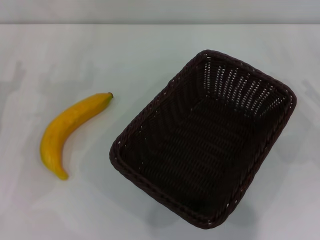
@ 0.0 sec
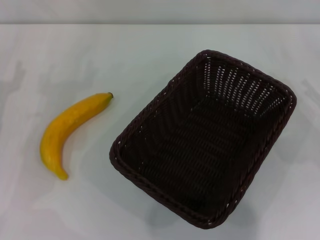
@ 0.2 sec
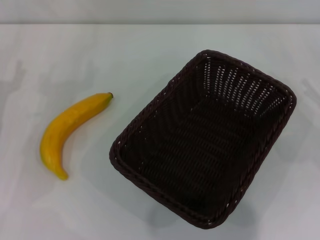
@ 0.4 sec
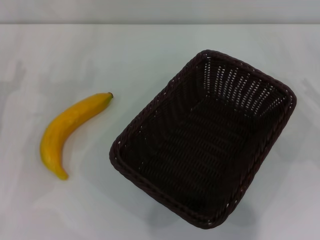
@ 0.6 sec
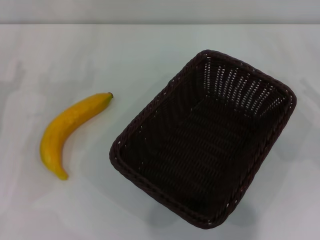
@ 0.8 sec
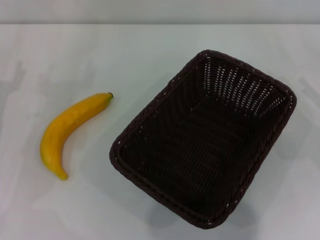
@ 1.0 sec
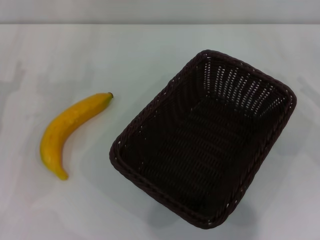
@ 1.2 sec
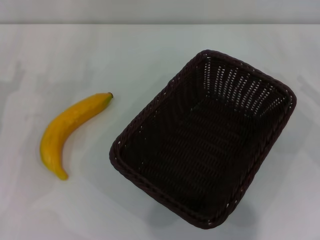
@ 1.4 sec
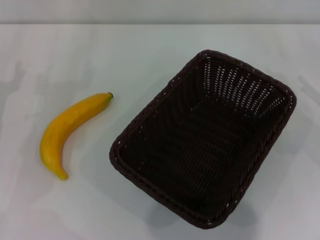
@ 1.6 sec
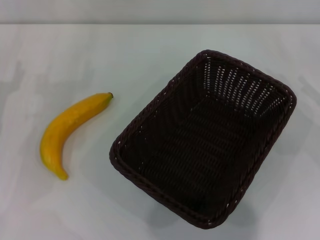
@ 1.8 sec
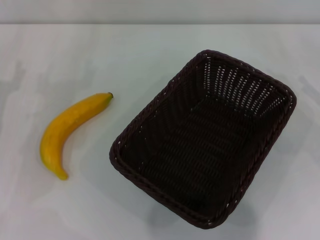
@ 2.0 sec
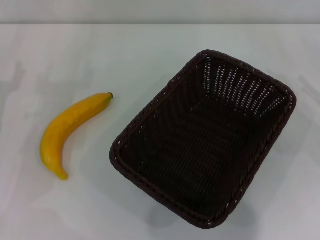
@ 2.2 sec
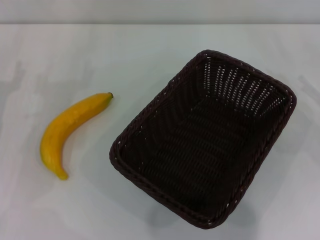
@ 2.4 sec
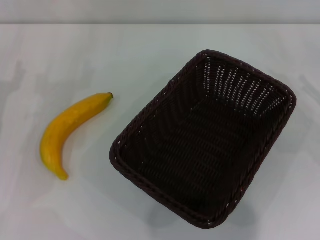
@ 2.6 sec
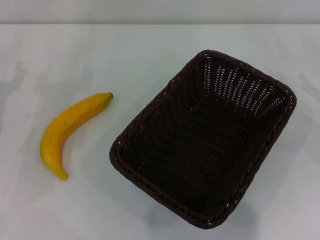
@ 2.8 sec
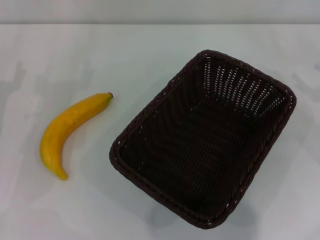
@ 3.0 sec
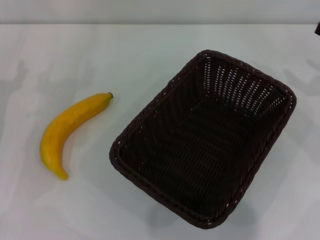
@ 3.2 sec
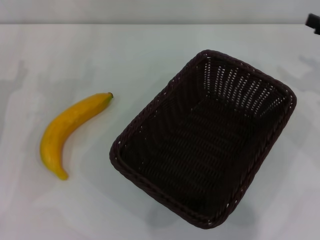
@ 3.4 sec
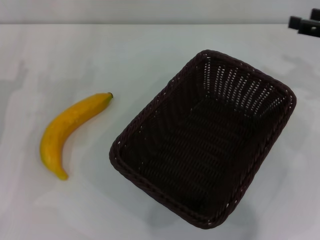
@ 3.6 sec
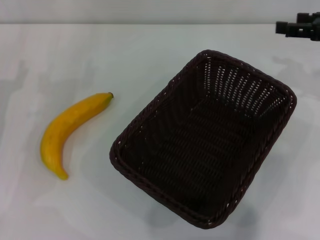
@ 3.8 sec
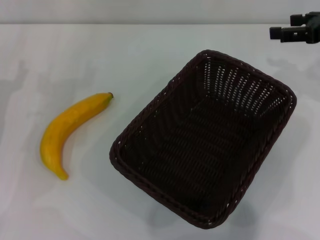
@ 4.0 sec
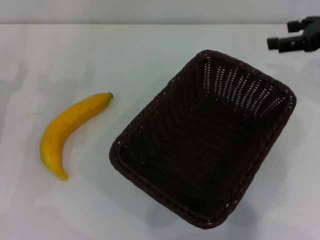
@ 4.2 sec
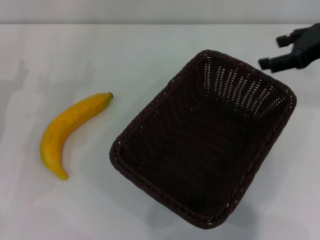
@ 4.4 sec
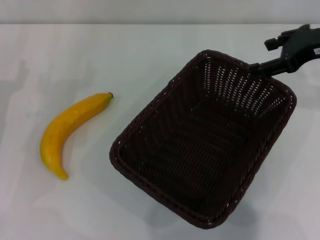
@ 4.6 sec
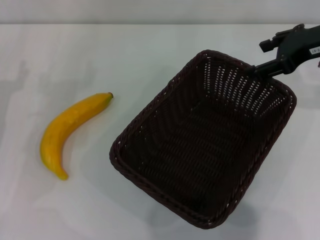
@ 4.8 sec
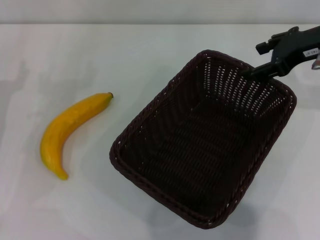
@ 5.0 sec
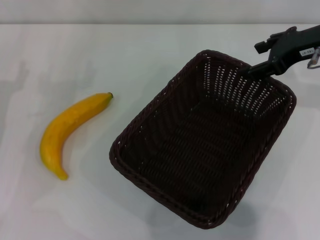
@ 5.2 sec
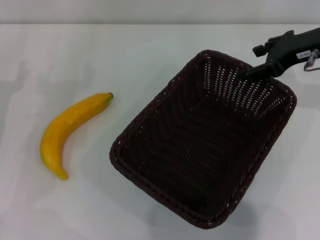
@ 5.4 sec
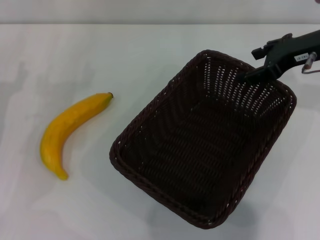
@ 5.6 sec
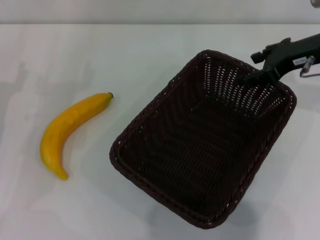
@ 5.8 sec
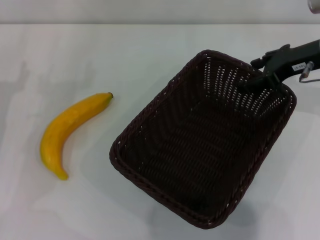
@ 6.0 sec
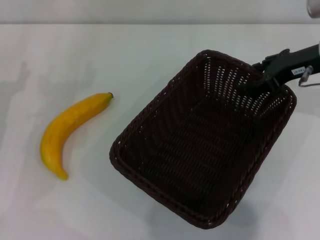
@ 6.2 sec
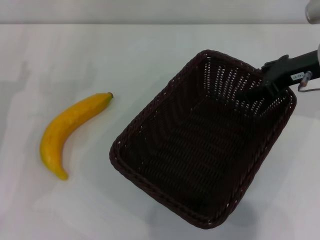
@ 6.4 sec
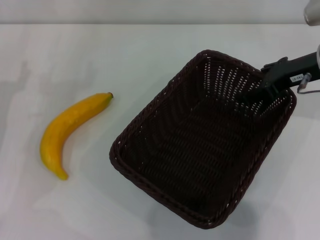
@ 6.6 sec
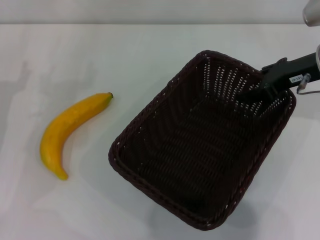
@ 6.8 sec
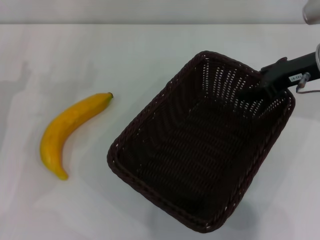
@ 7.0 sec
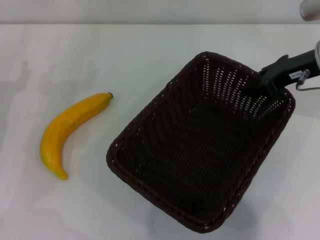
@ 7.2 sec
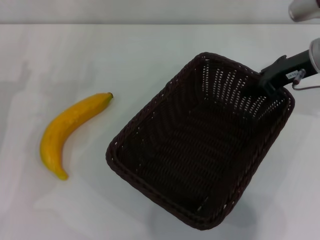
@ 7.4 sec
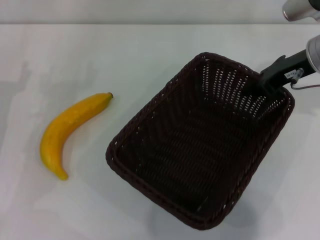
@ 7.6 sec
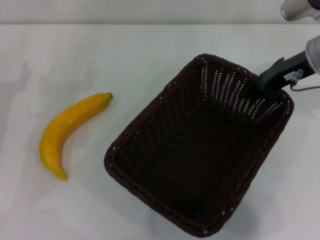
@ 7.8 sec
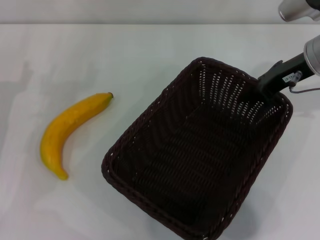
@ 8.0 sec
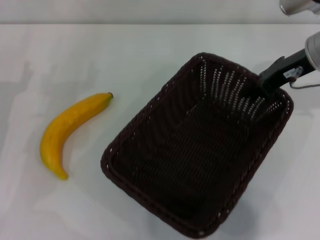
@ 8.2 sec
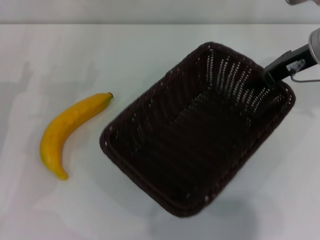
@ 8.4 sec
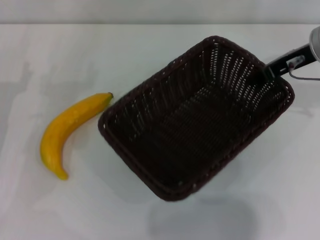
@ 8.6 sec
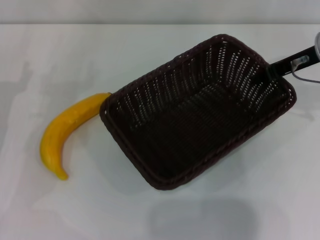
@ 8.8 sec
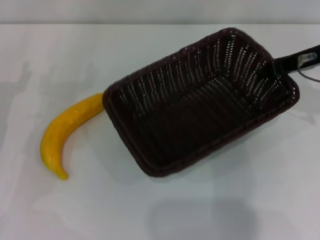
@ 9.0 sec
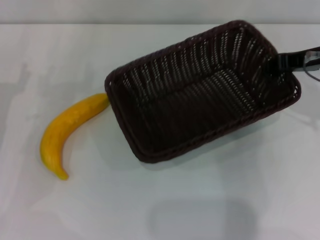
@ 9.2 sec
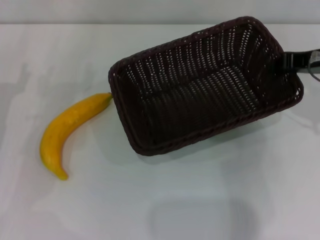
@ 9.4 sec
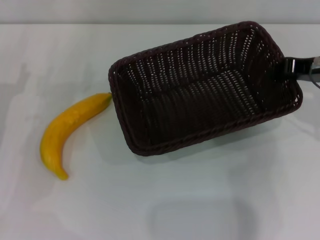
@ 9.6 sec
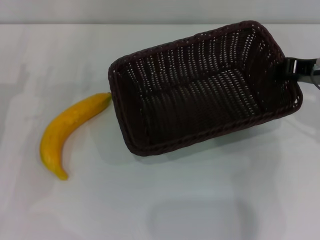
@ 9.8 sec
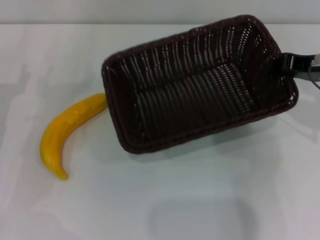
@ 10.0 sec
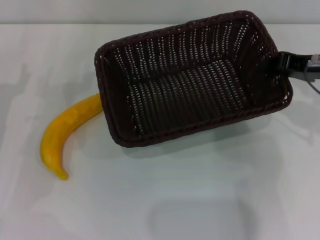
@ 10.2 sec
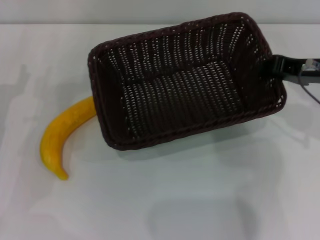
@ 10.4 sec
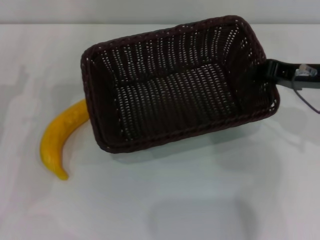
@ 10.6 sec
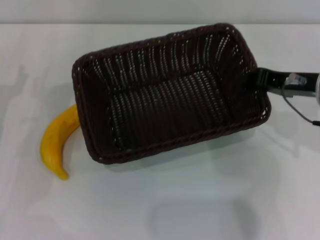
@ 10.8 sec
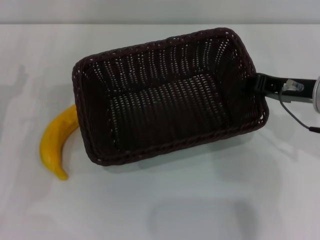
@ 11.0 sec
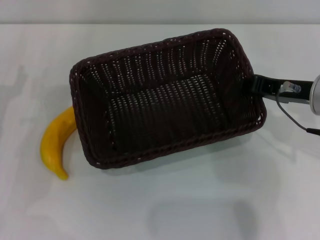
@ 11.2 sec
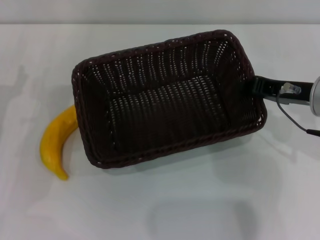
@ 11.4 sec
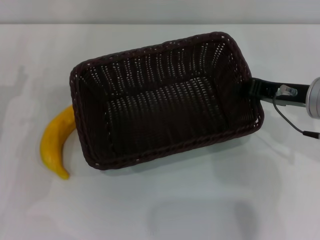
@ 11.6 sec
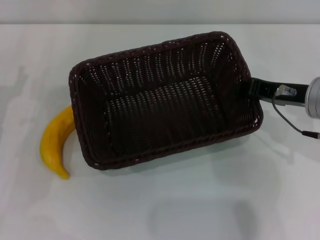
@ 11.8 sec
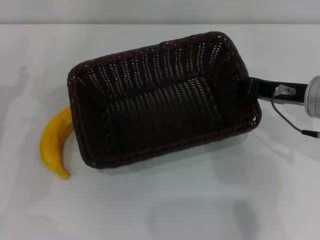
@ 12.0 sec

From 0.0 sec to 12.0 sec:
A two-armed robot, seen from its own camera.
Step, from 0.0 sec to 8.2 sec: Pick up the dark basket with the right gripper.
From 3.0 sec to 4.4 sec: The right gripper is displaced upward, to the left and forward by about 15 cm.
From 4.4 sec to 6.0 sec: There are only small adjustments of the grippers.
From 6.0 sec to 7.6 sec: The right gripper closes up.
From 9.0 sec to 10.4 sec: The right gripper travels backward by some 5 cm.
From 10.4 sec to 12.0 sec: The grippers stay close to where they were, moving slightly.

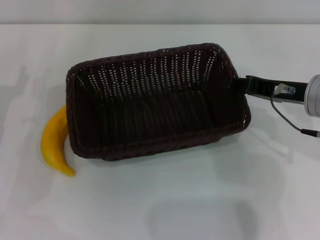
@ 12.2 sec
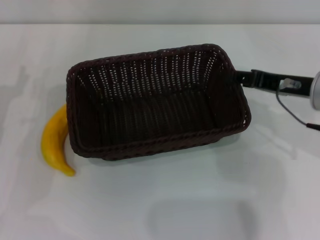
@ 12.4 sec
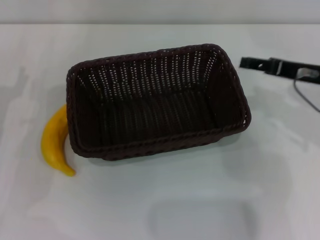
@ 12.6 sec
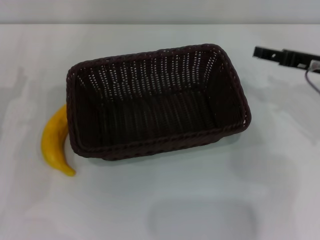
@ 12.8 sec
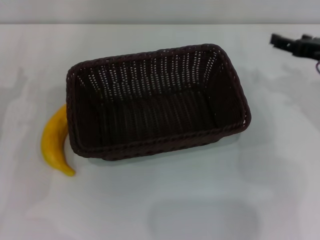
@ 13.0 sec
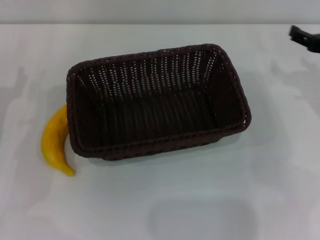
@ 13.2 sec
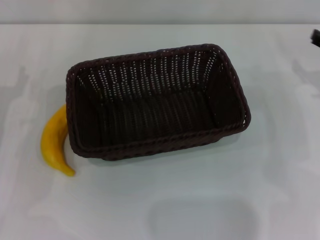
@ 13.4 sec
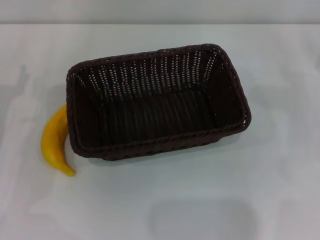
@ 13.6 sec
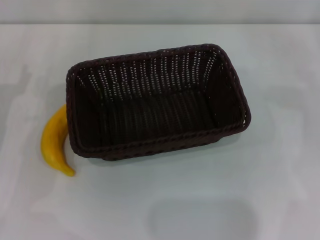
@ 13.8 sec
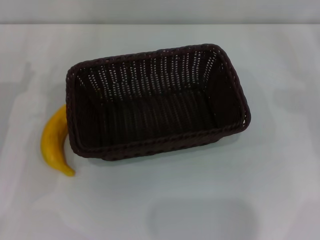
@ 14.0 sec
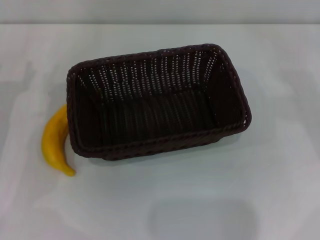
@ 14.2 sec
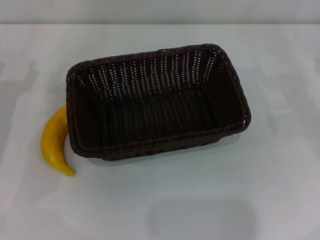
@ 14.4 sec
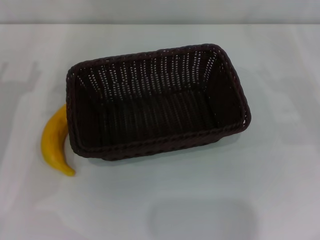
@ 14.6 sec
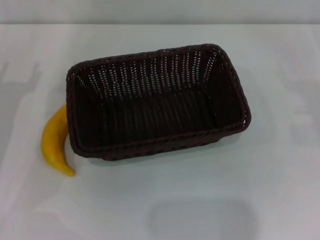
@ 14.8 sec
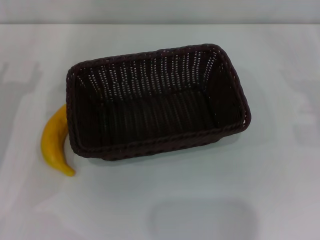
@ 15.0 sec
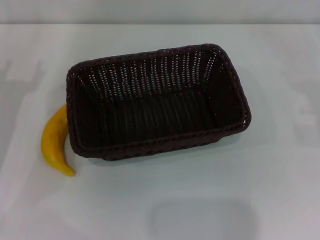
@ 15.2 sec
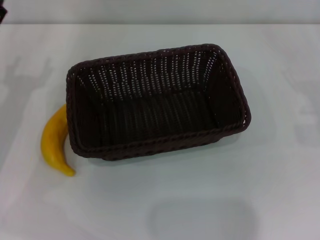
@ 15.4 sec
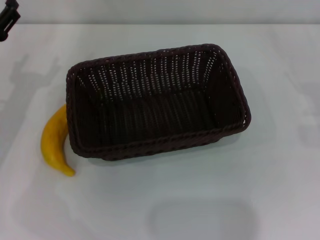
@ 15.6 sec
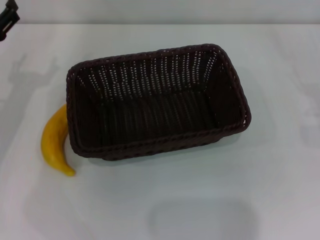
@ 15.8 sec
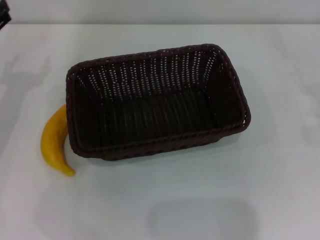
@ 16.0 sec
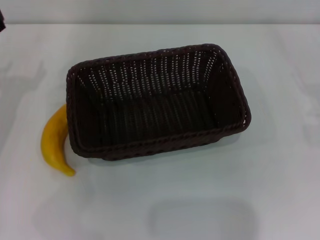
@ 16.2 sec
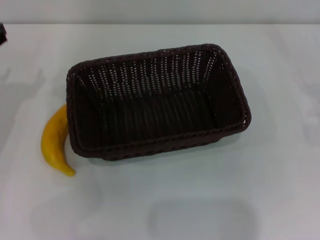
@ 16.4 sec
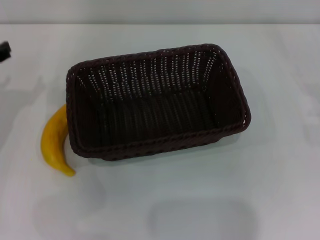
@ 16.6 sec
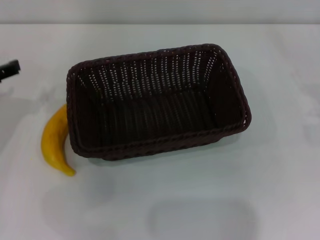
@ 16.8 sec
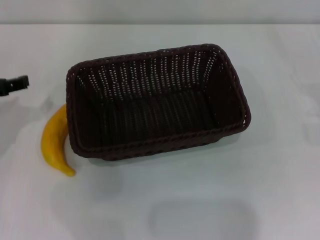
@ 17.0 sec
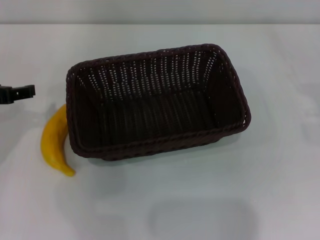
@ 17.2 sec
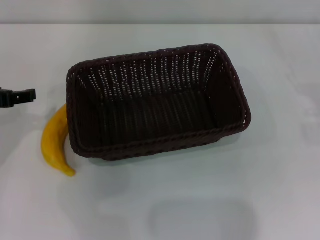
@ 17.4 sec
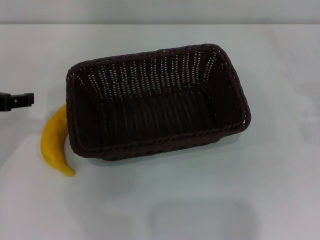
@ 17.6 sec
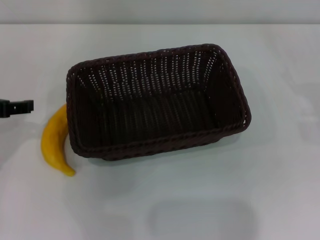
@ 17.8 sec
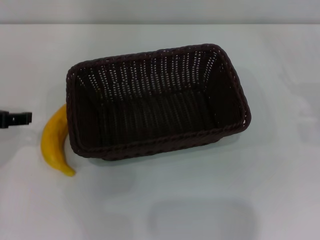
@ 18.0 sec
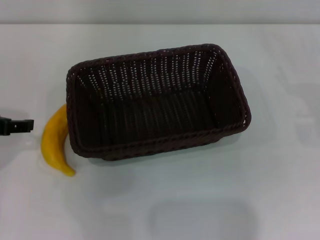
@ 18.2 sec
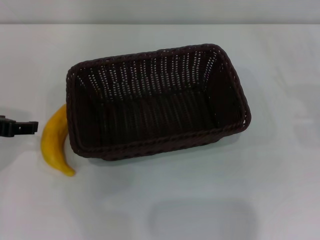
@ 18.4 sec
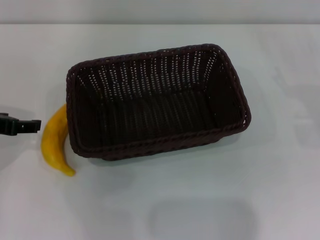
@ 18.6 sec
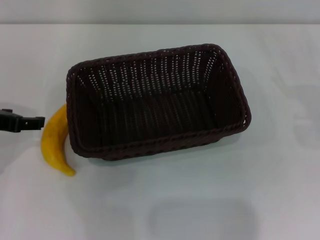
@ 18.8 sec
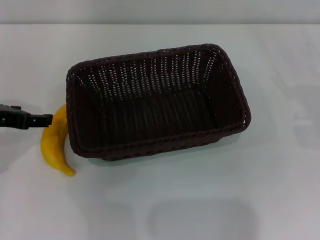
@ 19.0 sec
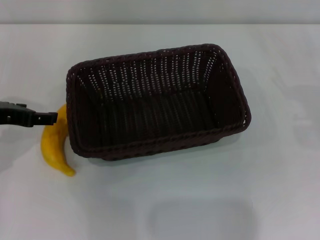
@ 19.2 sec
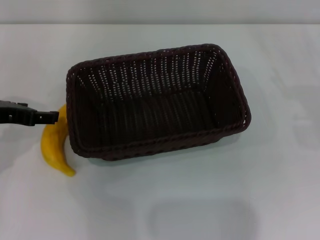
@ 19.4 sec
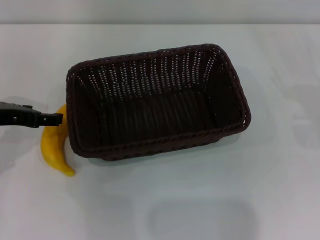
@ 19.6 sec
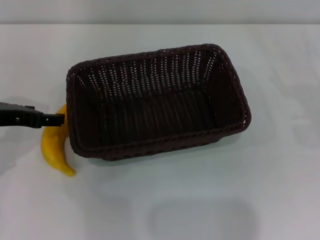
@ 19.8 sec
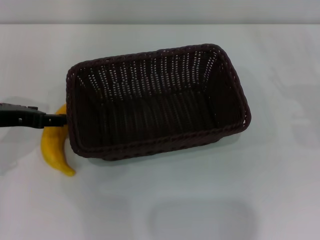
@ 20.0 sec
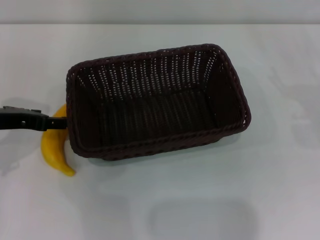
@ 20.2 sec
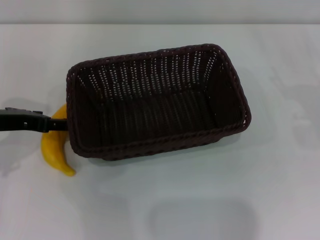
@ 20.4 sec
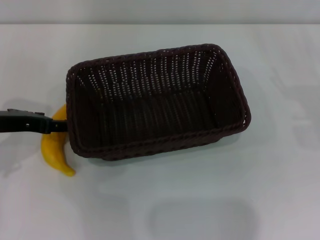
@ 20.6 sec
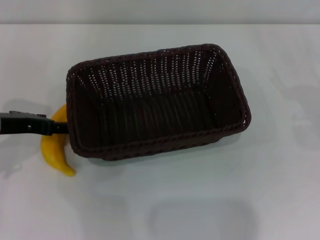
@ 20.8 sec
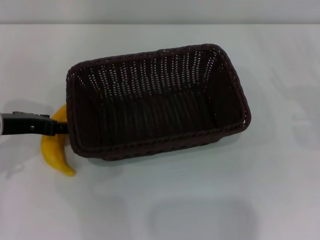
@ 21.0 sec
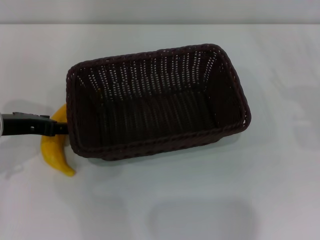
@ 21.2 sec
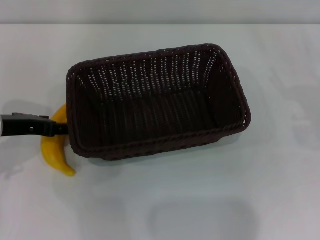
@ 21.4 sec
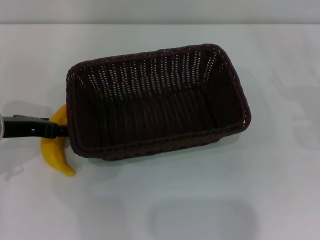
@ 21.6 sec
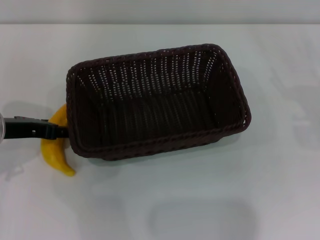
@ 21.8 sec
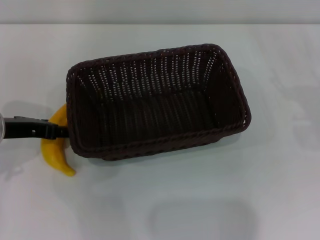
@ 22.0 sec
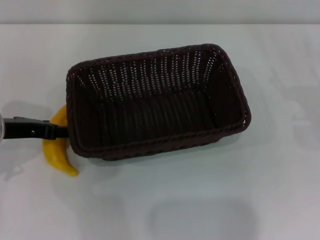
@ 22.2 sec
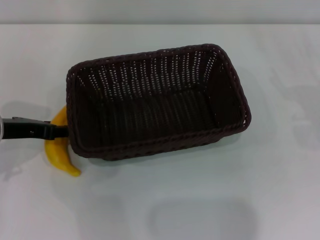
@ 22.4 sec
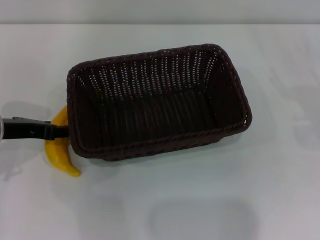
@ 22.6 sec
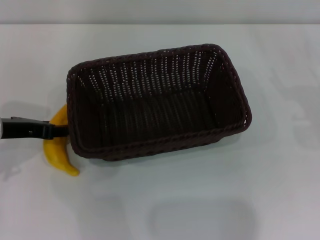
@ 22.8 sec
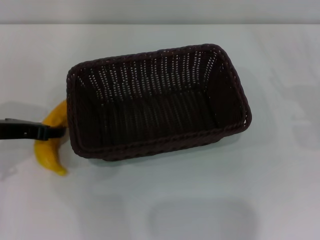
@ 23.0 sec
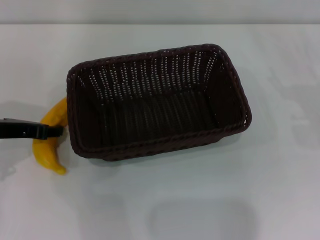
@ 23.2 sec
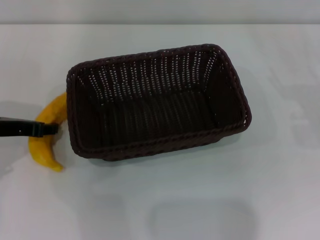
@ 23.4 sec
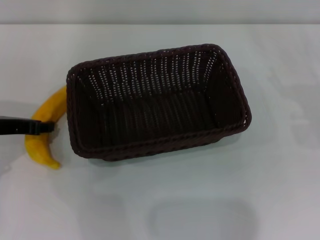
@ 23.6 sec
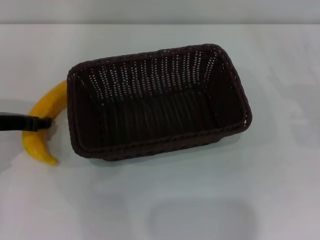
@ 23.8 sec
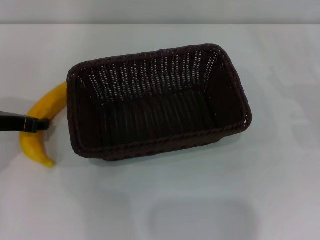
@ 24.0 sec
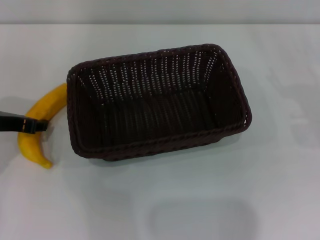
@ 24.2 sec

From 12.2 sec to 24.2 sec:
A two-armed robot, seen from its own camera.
From 12.2 sec to 13.8 sec: The right gripper moves to the right, approximately 15 cm, and opens up.
From 18.2 sec to 19.8 sec: The grippers move only a little.
From 19.8 sec to 21.2 sec: The grippers make only small movements.
From 21.2 sec to 22.6 sec: The left gripper closes up.
From 22.6 sec to 24.2 sec: The grippers move only a little.
